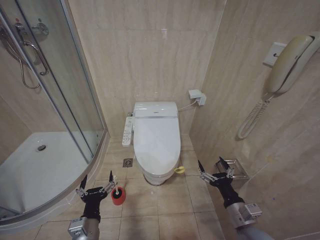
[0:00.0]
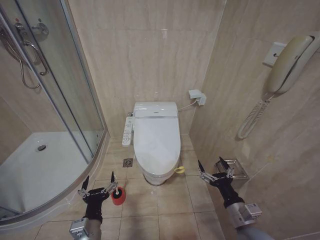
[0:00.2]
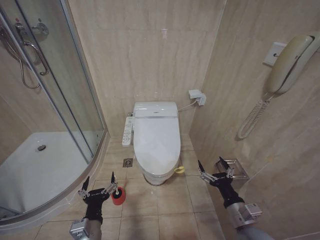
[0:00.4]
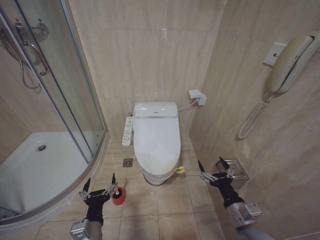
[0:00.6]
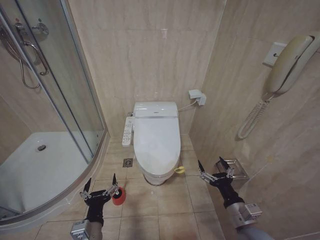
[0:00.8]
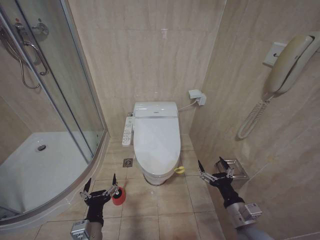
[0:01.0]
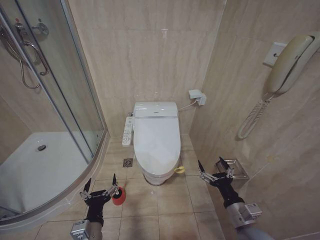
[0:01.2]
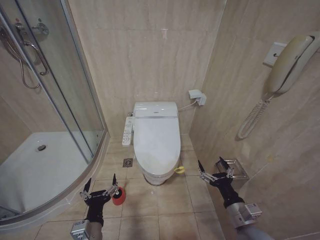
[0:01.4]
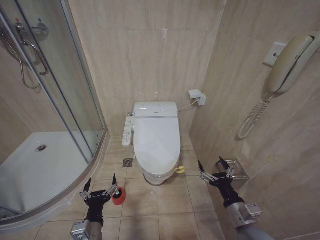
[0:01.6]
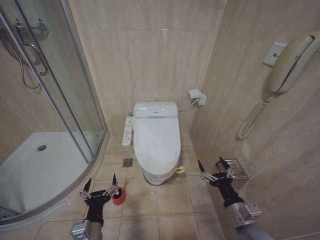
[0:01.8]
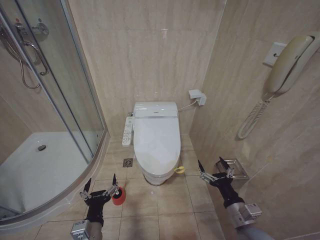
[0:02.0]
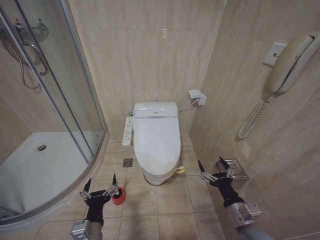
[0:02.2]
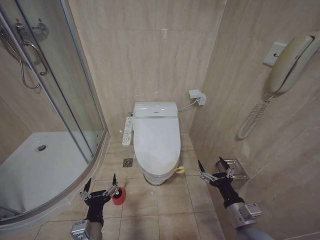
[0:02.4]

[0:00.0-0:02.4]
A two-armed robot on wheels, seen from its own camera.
Task of the whole recording: Open the toilet lid, clean the toilet bowl with a toilet brush, close the toilet lid, and flush.
0:00.0 to 0:02.4: The two grippers keep their place.

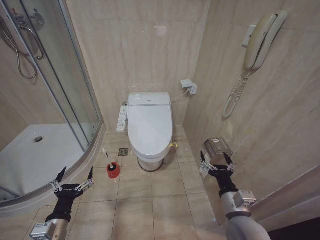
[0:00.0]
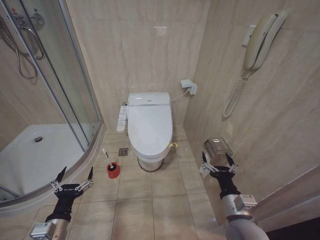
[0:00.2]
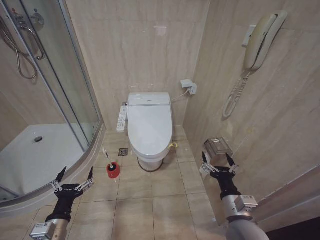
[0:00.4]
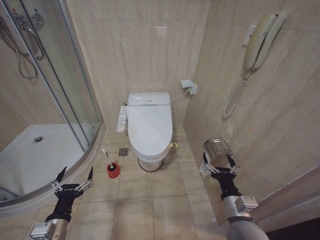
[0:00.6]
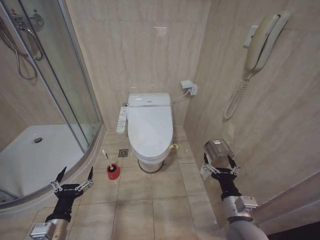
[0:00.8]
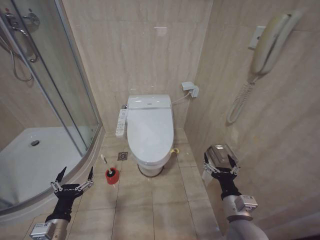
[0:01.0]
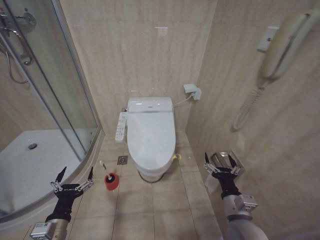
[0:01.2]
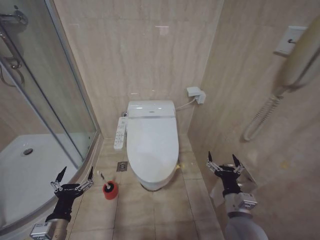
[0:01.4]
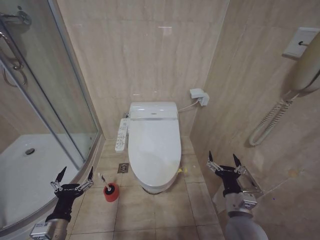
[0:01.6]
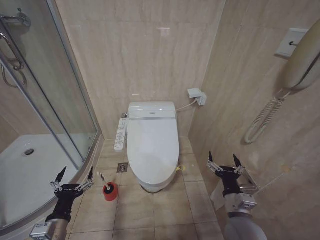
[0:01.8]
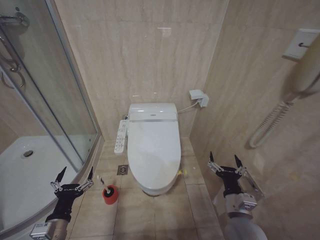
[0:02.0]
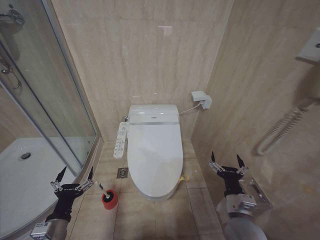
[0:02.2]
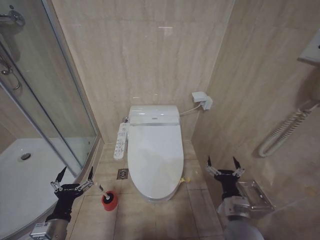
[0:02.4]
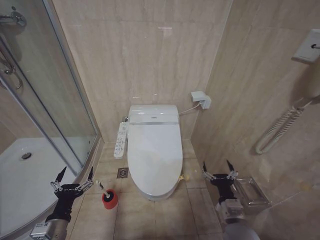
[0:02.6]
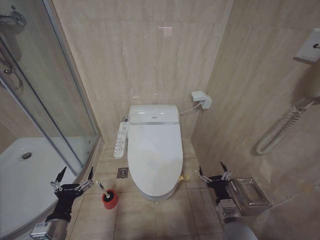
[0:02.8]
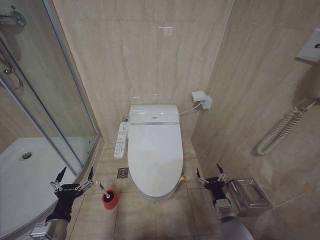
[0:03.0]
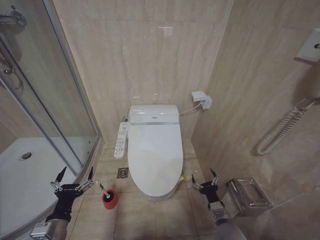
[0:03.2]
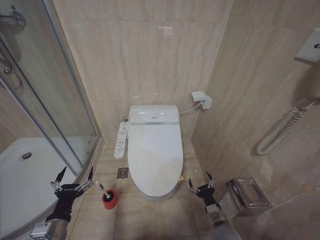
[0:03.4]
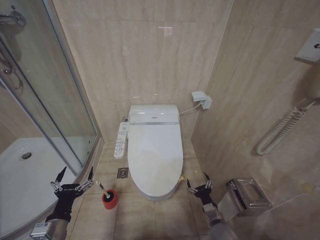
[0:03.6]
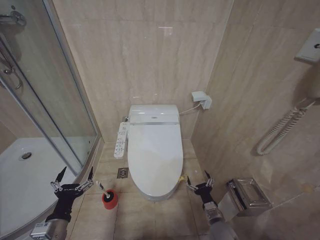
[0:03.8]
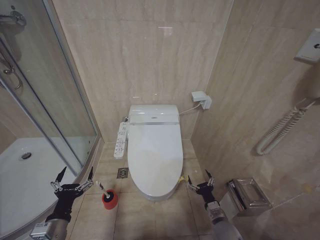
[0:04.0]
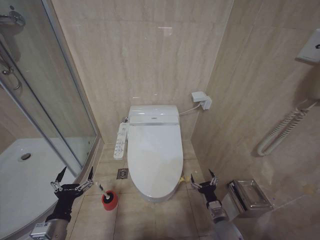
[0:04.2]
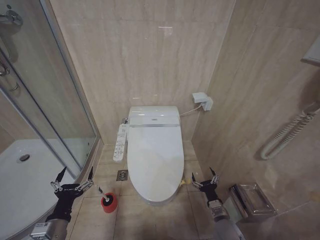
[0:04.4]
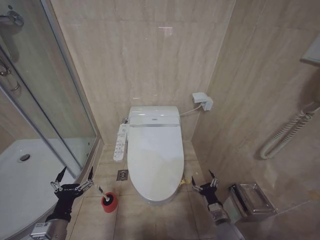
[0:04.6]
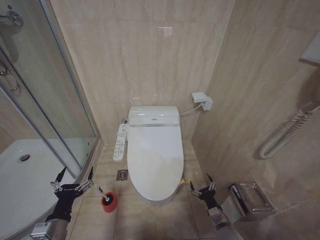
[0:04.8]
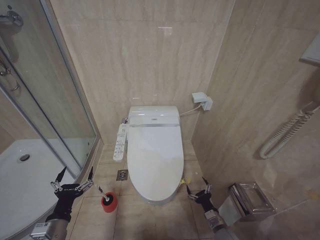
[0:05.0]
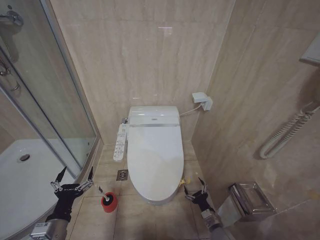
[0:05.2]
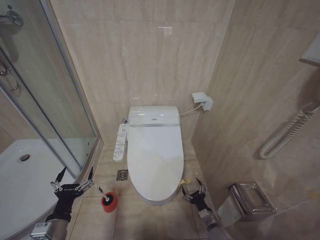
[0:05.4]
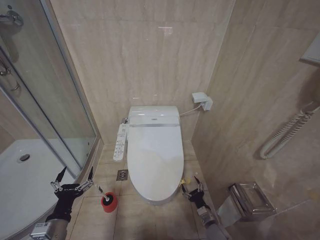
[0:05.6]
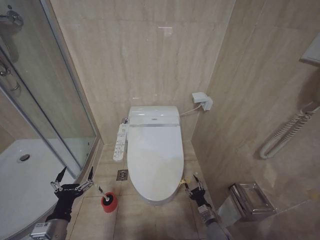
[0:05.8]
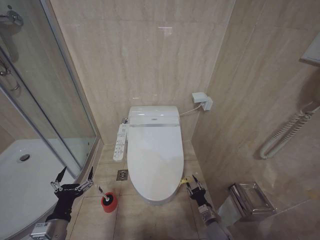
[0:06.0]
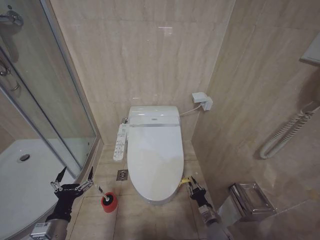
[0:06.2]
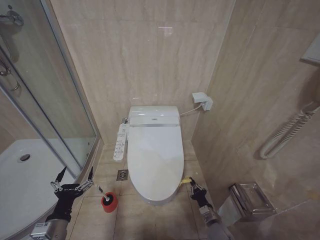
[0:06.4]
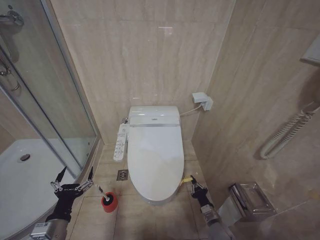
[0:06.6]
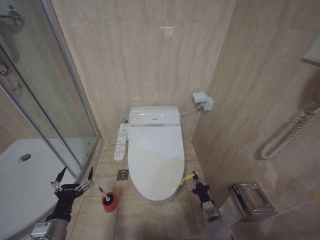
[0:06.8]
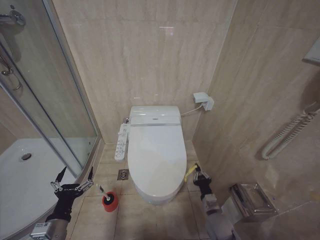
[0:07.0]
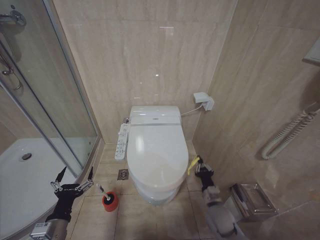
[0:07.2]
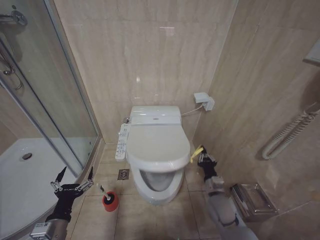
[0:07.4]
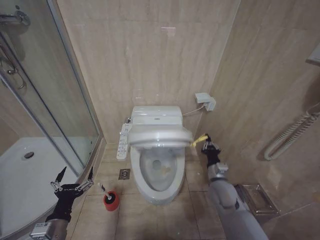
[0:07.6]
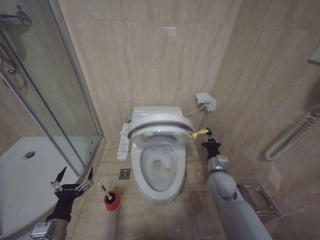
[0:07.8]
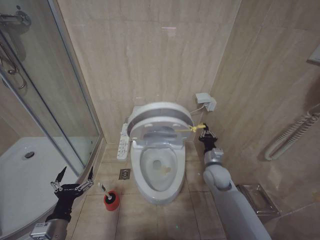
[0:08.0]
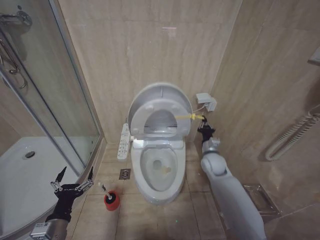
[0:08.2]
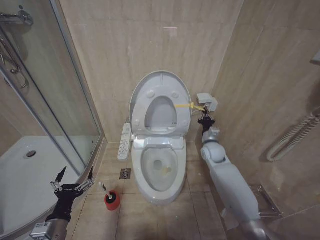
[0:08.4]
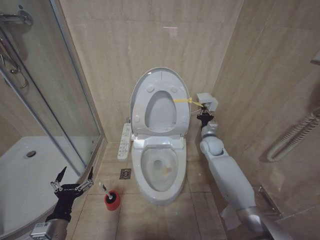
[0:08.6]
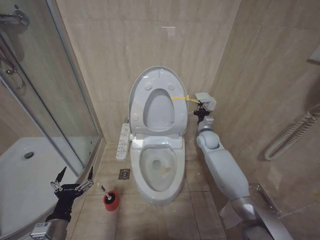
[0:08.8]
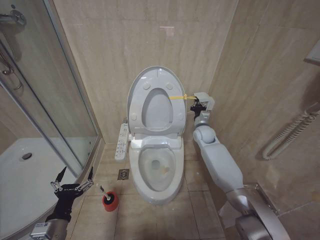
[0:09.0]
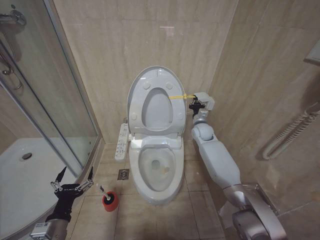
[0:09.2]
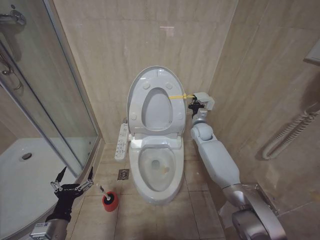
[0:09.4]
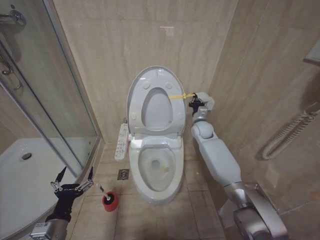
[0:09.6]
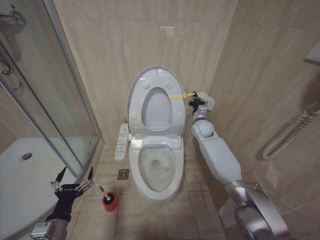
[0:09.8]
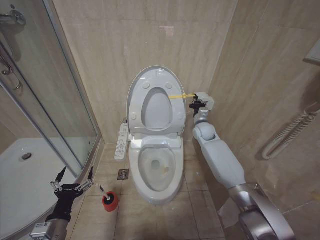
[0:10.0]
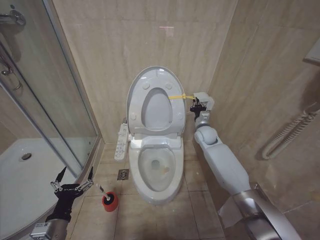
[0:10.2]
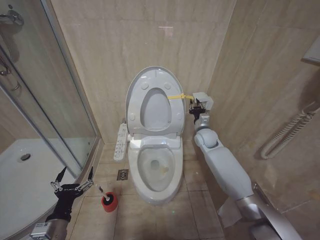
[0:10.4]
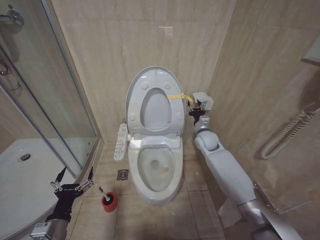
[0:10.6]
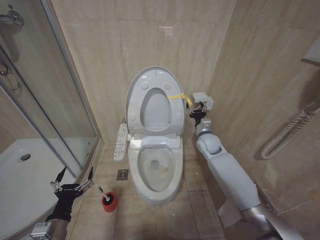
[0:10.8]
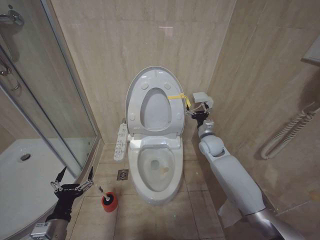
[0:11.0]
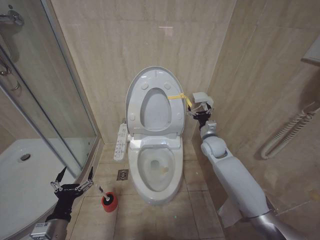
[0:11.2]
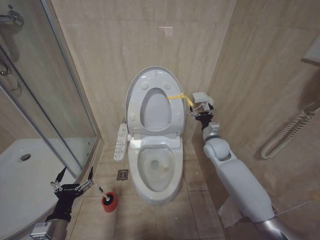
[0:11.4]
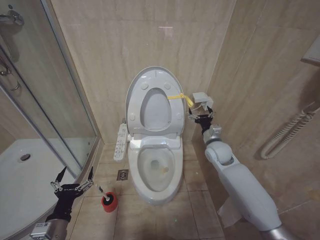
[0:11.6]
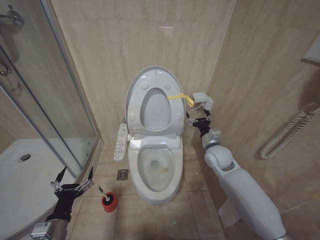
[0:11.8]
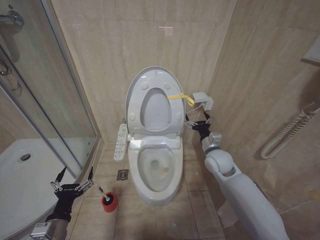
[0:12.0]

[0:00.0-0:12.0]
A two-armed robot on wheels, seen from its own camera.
Task of the whole recording: Open the toilet lid, clean the toilet bowl with a toilet brush, close the toilet lid, and flush.
0:01.6 to 0:03.0: The right gripper heads downward, covering some 10 cm.
0:03.0 to 0:04.4: The right gripper shifts about 5 cm downward.
0:04.4 to 0:06.0: The right gripper shifts some 5 cm downward.
0:06.0 to 0:07.6: The right gripper travels upward and forward by approximately 20 cm, and closes its fingers.
0:07.6 to 0:09.0: The right gripper travels forward and upward by some 25 cm.
0:09.0 to 0:10.4: The grippers stay close to where they were, moving slightly.
0:10.4 to 0:12.0: The right gripper shifts roughly 10 cm backward, and opens up.

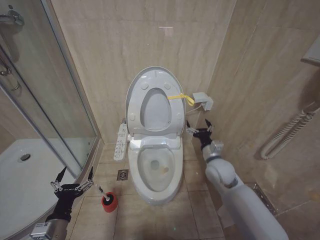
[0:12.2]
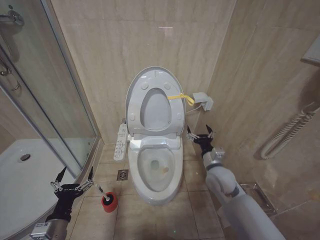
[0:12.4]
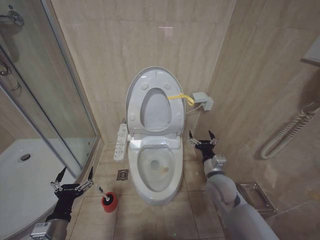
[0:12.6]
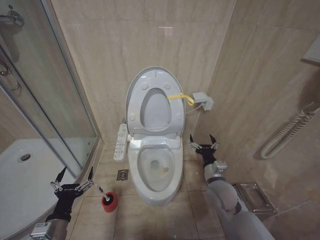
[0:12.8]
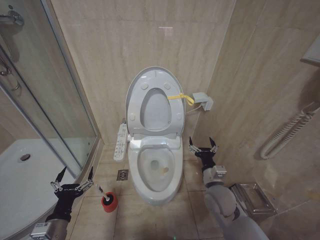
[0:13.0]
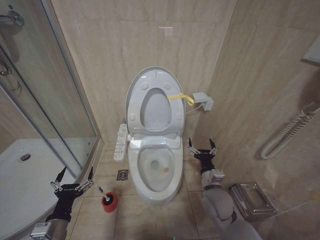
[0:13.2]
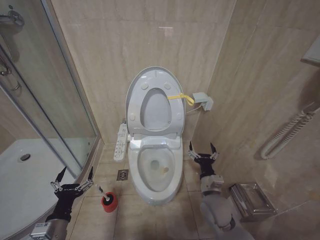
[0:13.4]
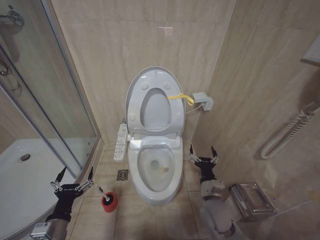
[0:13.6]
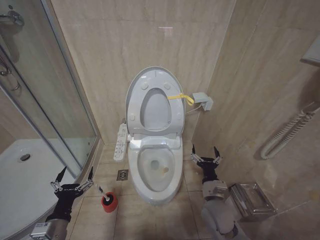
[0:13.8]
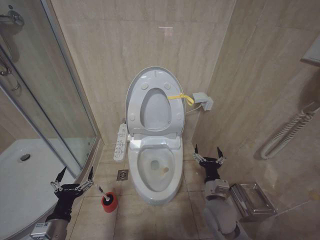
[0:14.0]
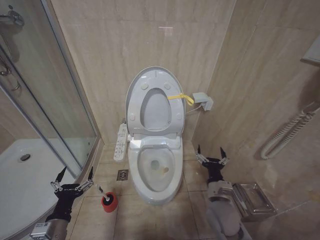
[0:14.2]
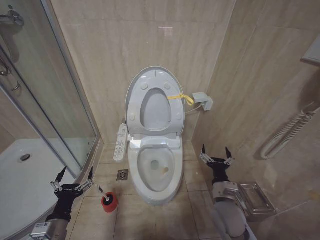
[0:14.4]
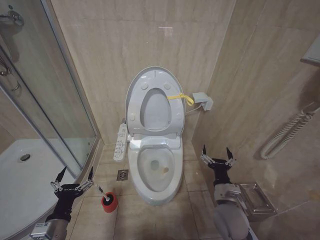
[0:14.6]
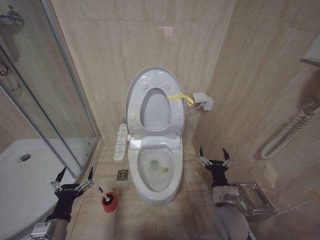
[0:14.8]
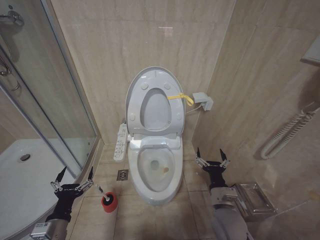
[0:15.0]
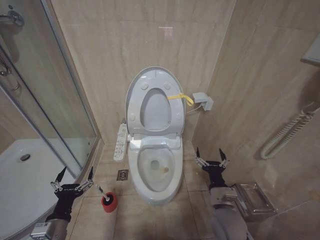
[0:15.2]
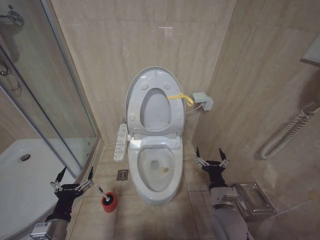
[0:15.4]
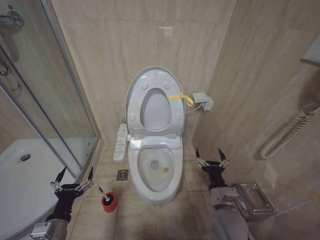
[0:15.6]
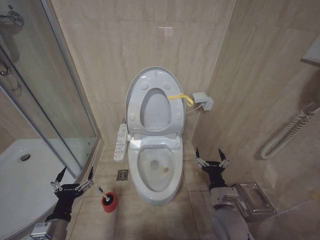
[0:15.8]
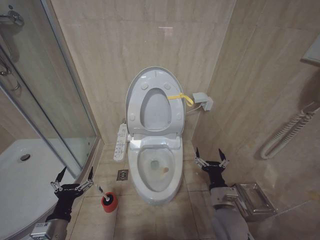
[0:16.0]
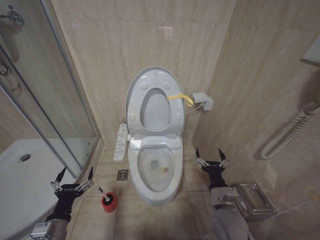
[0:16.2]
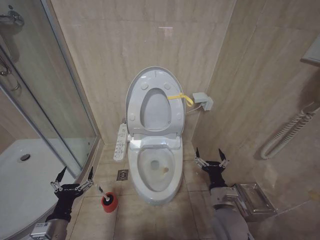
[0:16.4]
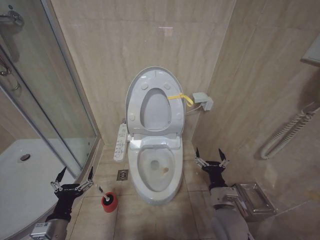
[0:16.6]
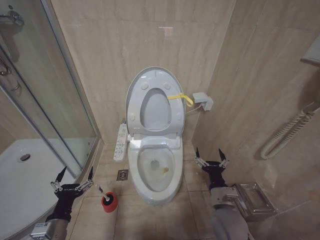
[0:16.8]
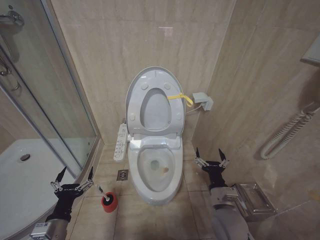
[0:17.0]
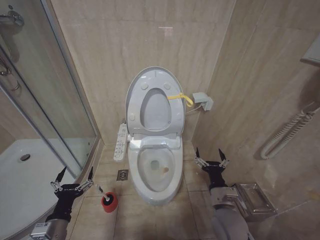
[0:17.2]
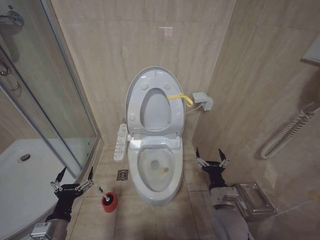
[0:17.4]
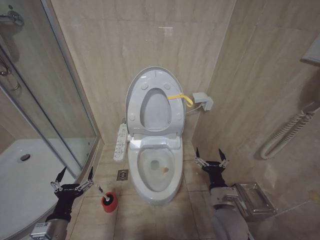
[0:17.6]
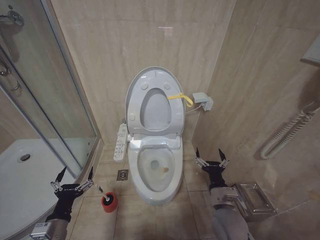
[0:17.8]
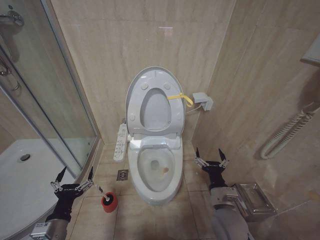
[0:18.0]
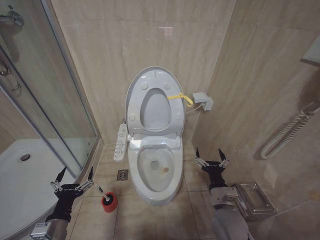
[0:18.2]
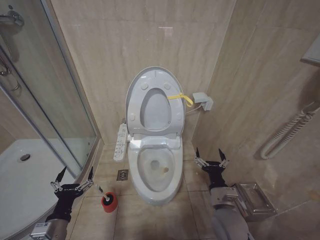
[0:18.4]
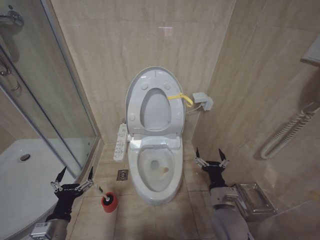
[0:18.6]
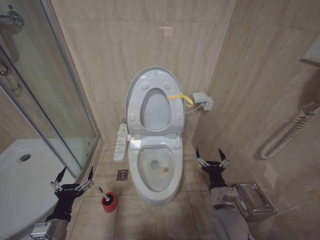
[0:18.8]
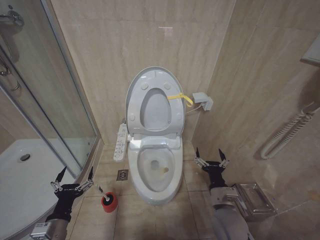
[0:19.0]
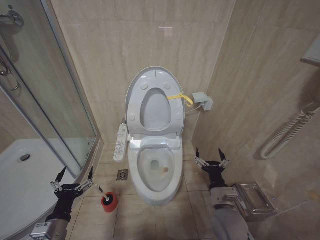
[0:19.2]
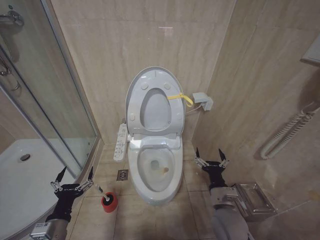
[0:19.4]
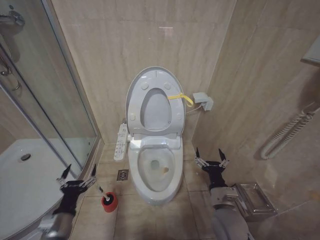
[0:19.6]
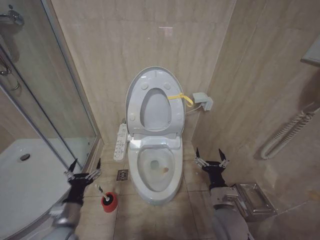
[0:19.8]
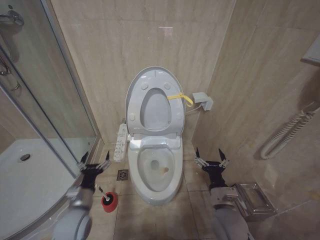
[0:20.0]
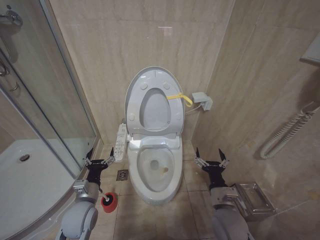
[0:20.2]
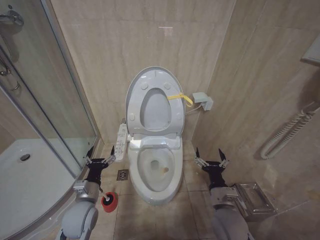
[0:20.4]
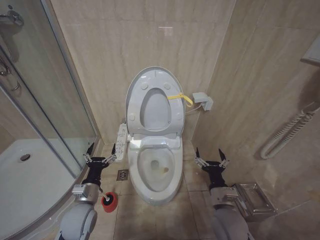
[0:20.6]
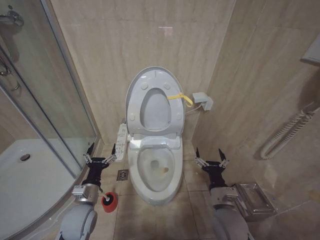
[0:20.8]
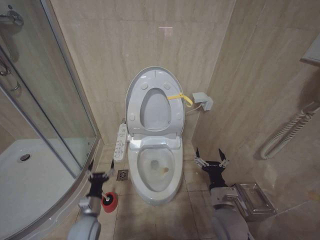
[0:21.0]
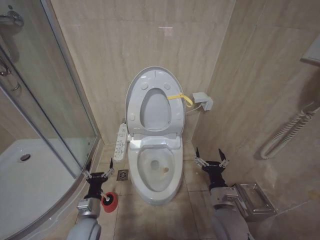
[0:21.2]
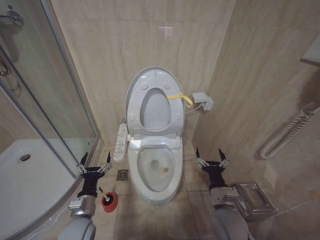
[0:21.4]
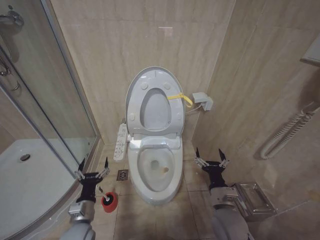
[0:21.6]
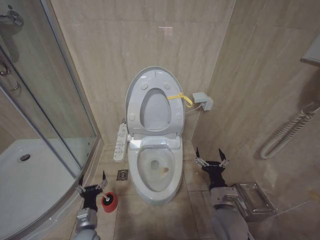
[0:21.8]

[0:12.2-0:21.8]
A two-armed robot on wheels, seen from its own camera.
Task of the whole recording: Open the toilet lid, clean the toilet bowl with a toilet brush, close the toilet lid, and flush.
0:12.2 to 0:13.8: The right gripper moves backward and downward, approximately 15 cm.
0:13.8 to 0:15.4: The grippers stay close to where they were, moving slightly.
0:15.4 to 0:18.6: Both grippers stay about where they are.
0:18.6 to 0:20.2: The left gripper is displaced forward and to the right by approximately 10 cm.
0:20.2 to 0:21.8: The left gripper swings up and down, some 10 cm each way, with 2 reversals.
